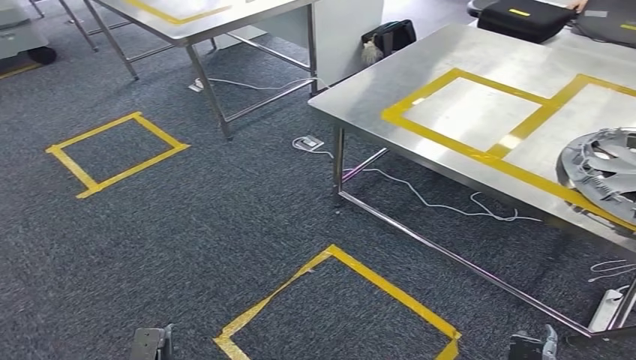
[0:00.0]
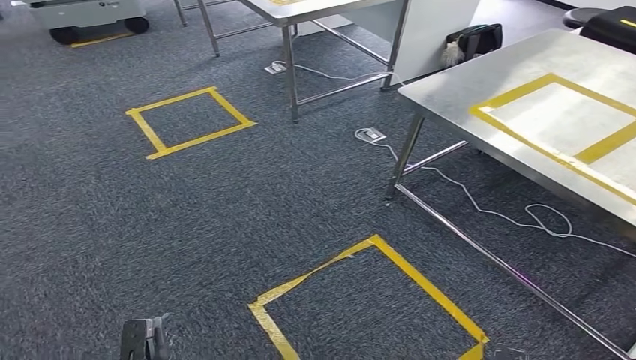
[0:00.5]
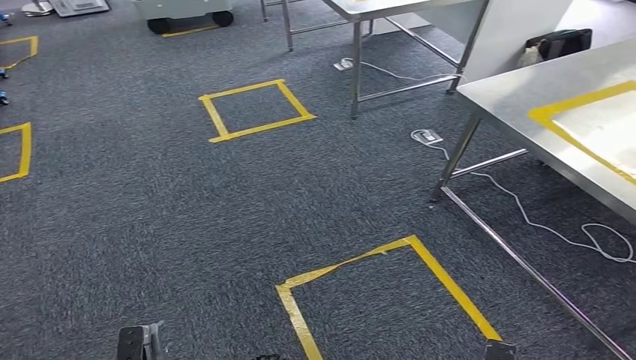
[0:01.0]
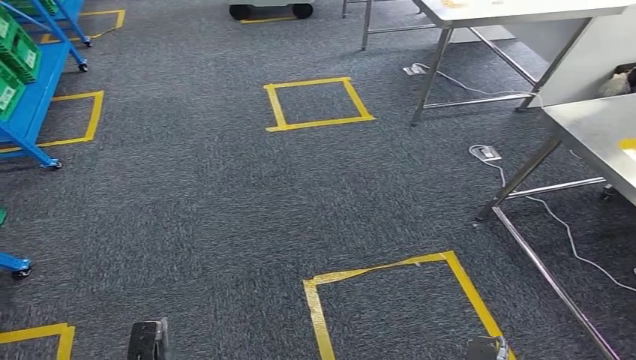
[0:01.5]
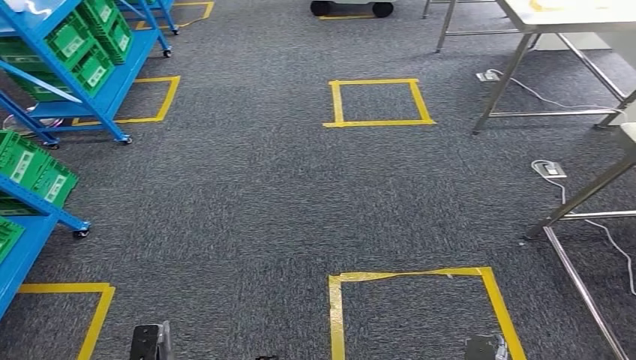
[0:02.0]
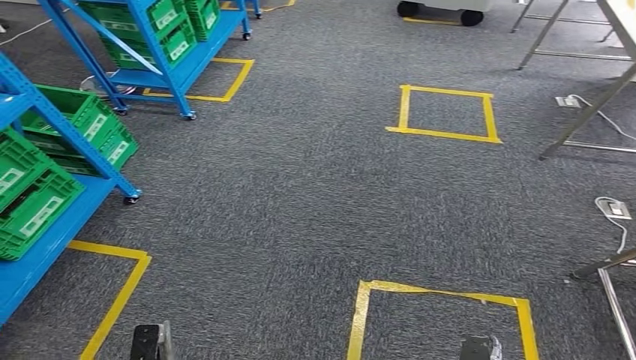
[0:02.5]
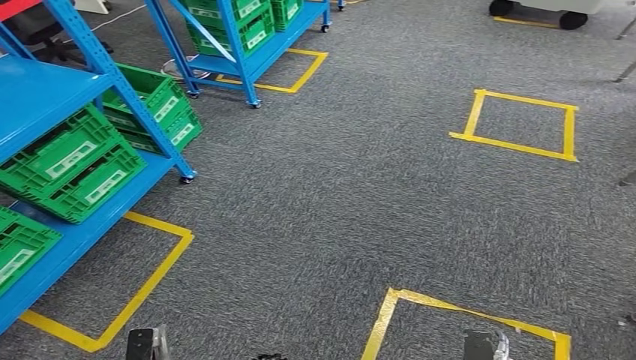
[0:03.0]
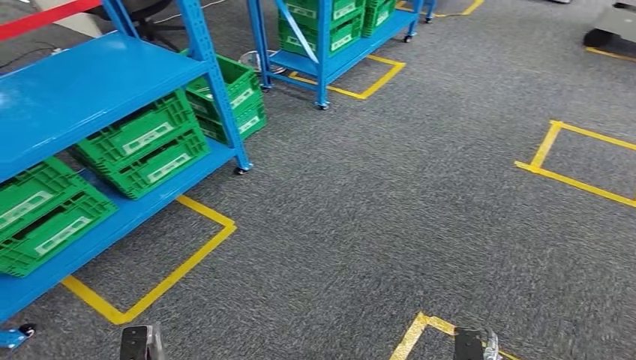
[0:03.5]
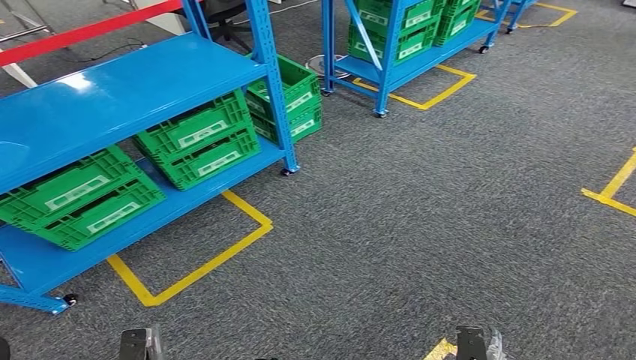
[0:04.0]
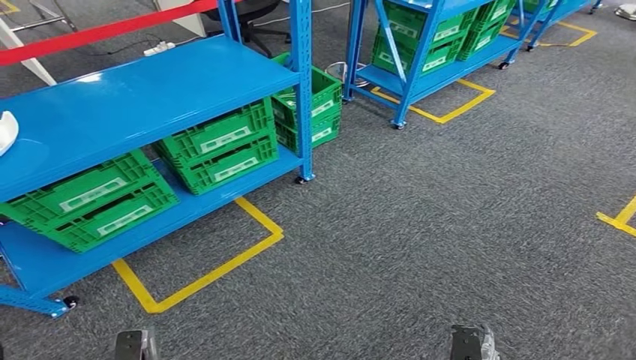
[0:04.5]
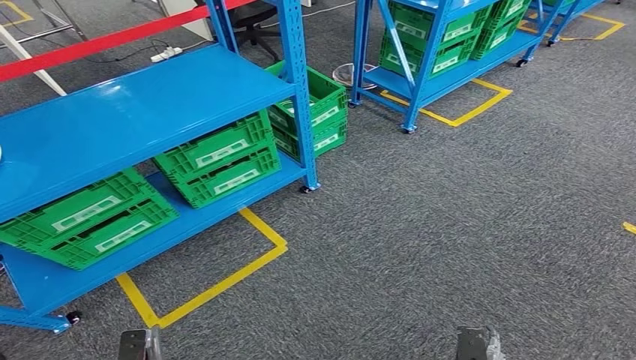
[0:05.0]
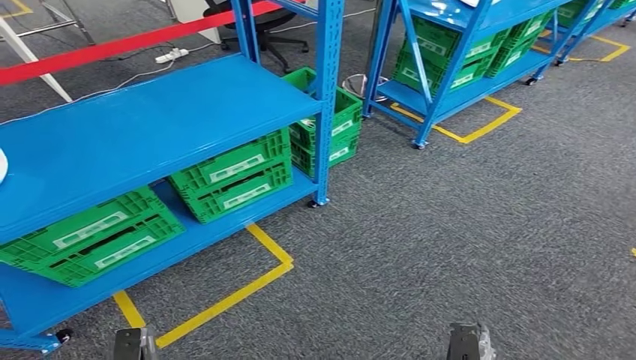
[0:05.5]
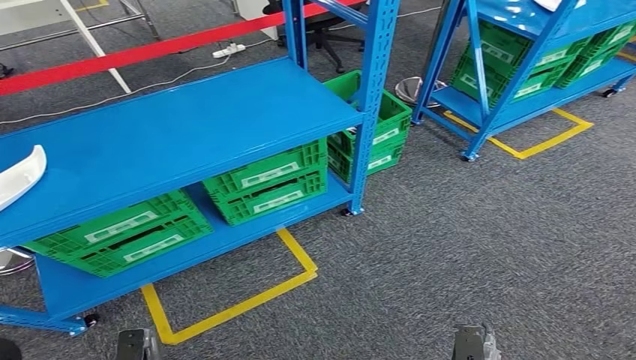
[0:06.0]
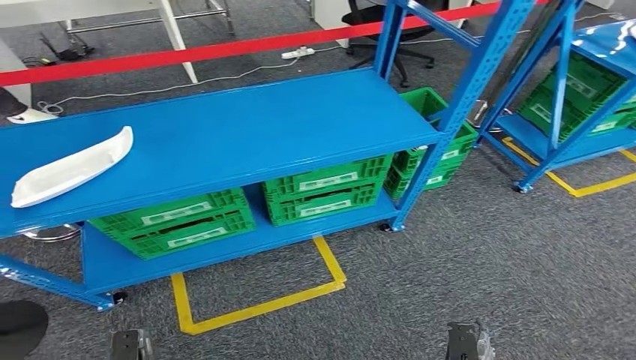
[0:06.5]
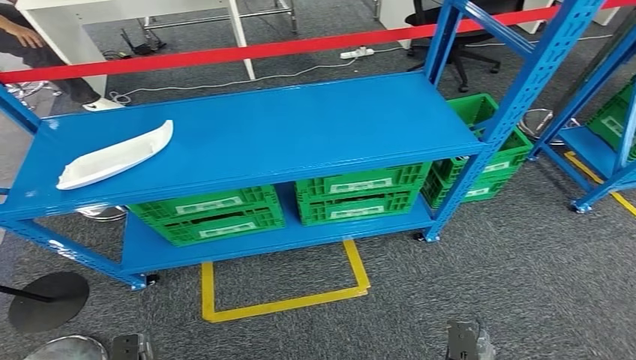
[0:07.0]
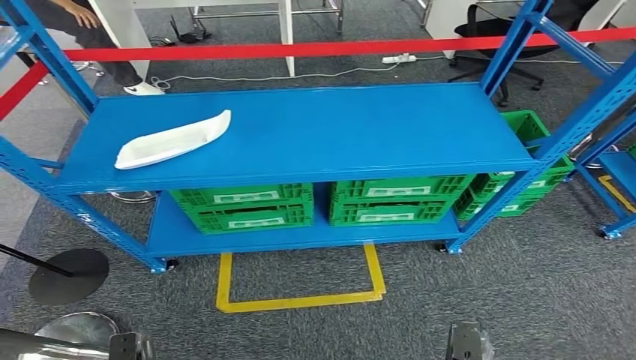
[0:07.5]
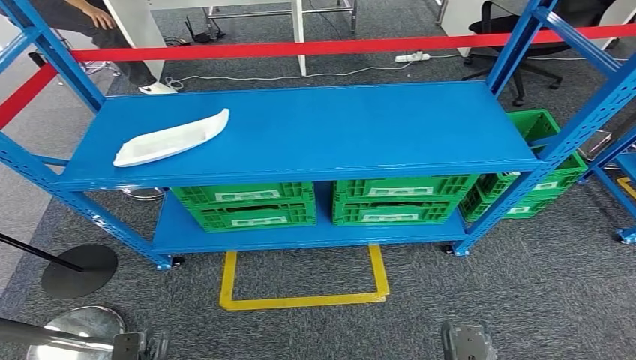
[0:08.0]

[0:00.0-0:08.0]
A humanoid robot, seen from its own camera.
Step, 0:00.0 to 0:08.0: Return to the initial position at the workbench.
